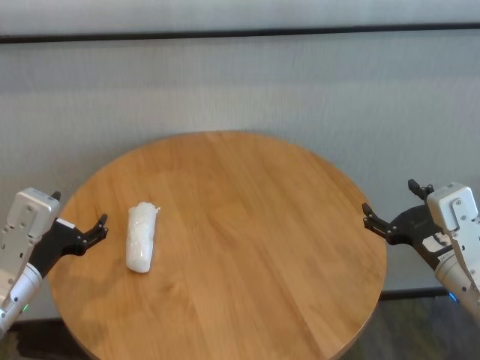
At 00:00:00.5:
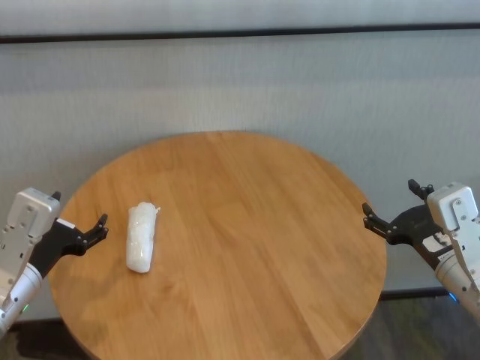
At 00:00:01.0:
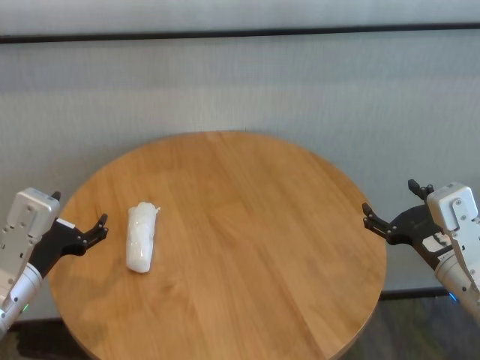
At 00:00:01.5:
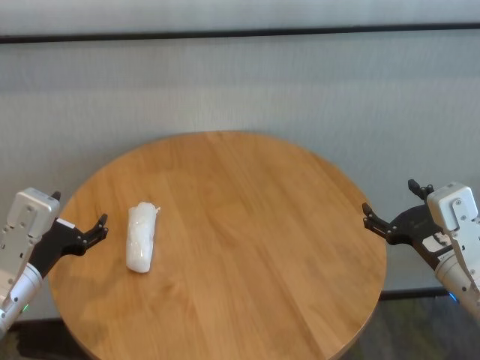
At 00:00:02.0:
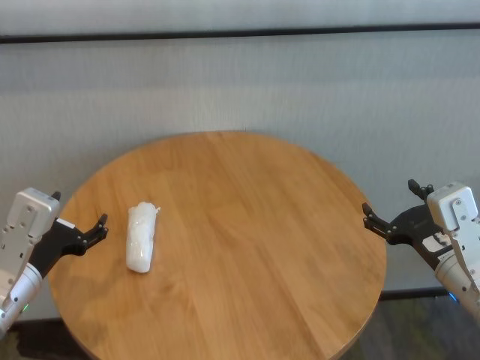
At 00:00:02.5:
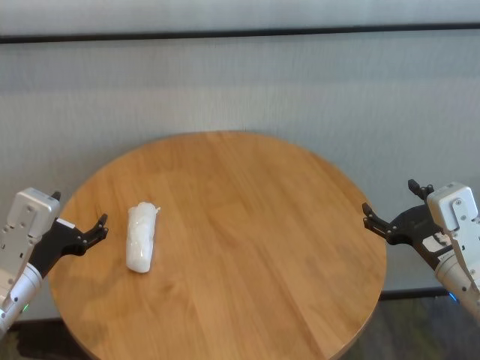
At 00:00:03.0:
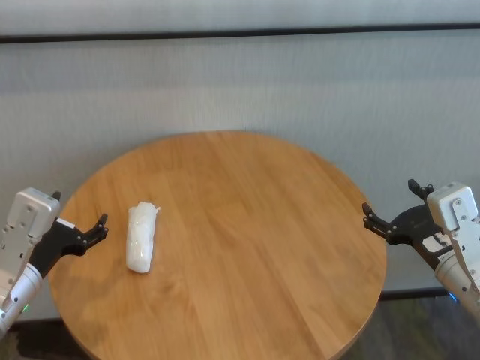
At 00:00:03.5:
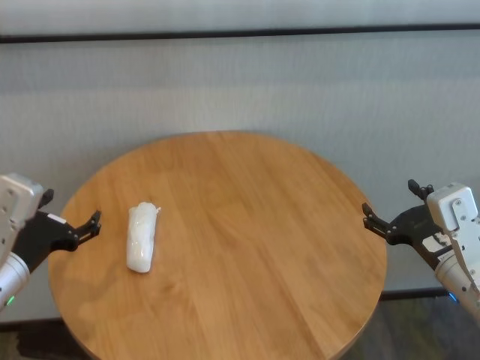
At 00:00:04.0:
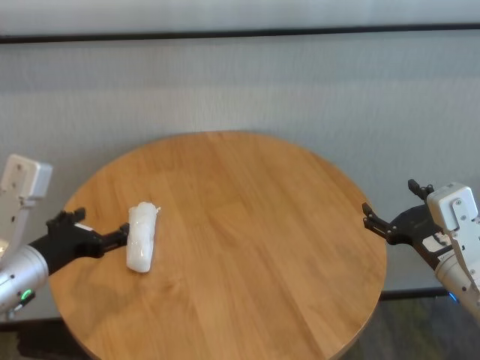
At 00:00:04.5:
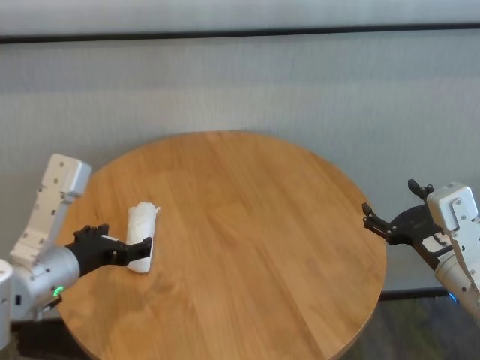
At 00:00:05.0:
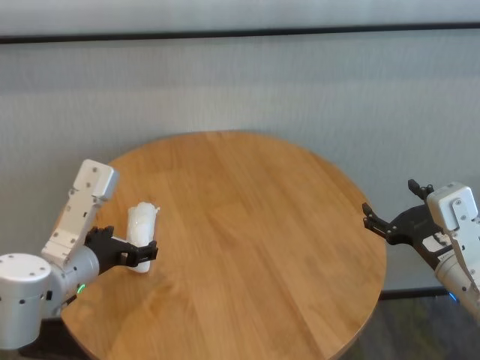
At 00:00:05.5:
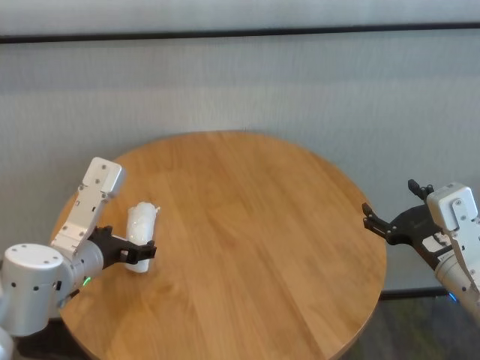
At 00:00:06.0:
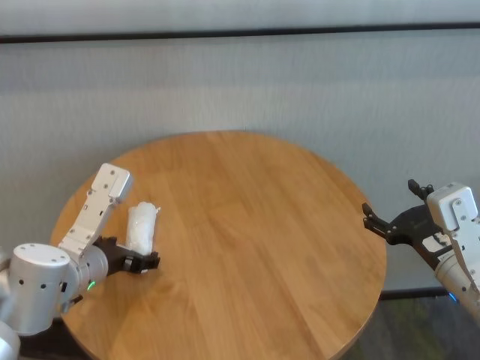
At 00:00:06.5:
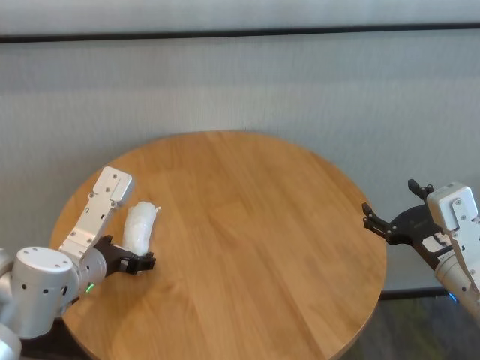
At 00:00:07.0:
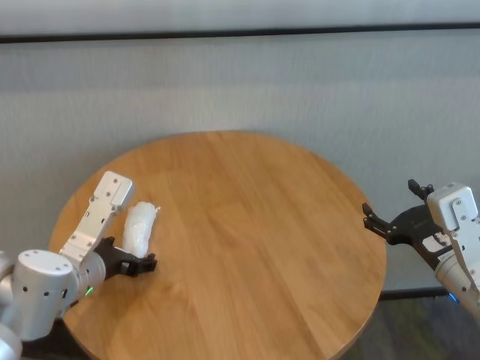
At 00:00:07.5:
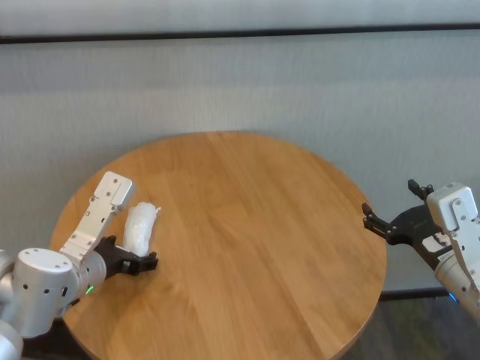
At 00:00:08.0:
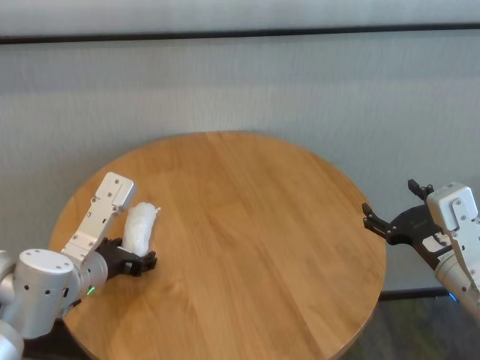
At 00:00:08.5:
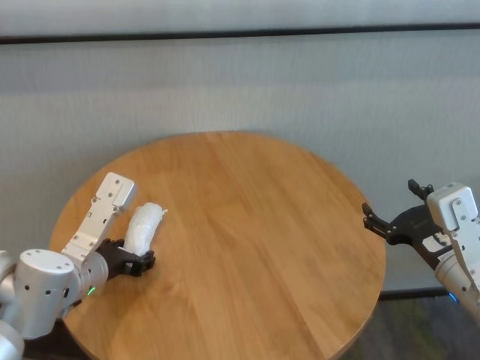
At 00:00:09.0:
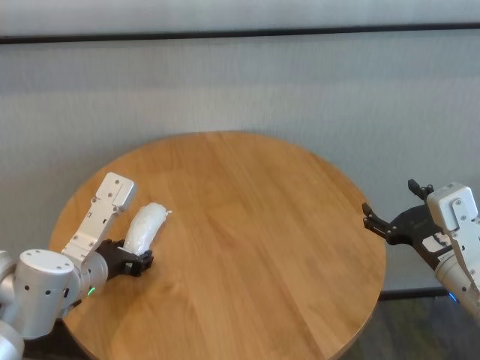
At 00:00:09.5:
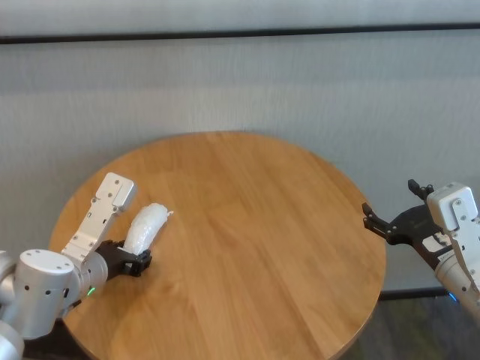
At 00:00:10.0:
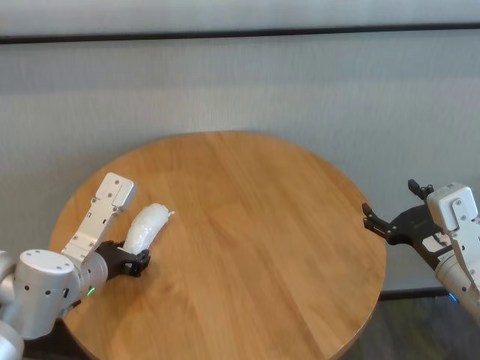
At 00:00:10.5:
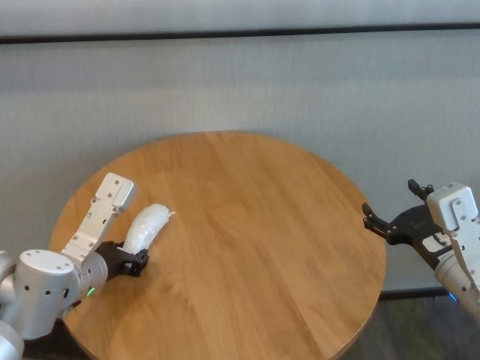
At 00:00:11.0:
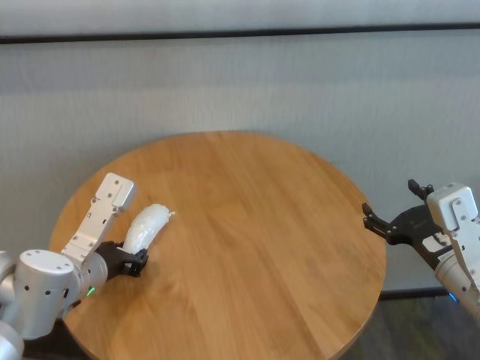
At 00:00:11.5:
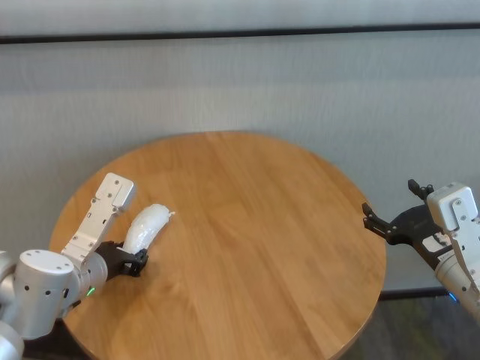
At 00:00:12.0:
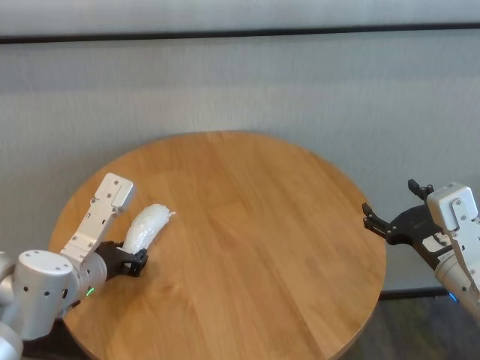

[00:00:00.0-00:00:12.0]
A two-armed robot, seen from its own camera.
Task of the whole recording: One hand took the sandbag from the other hand and placed it on the table.
Step, 00:00:00.0 to 00:00:10.5: Grasp the paper ball with left gripper.

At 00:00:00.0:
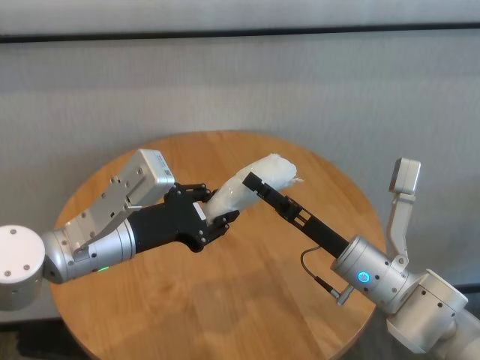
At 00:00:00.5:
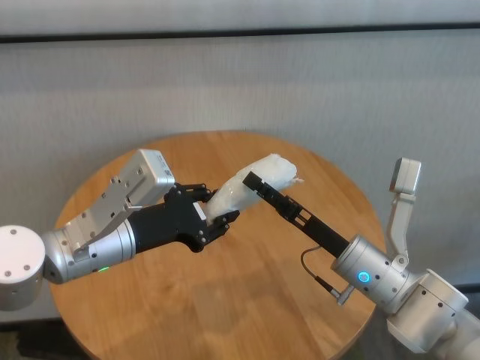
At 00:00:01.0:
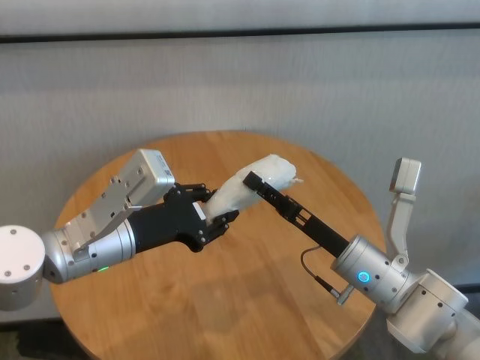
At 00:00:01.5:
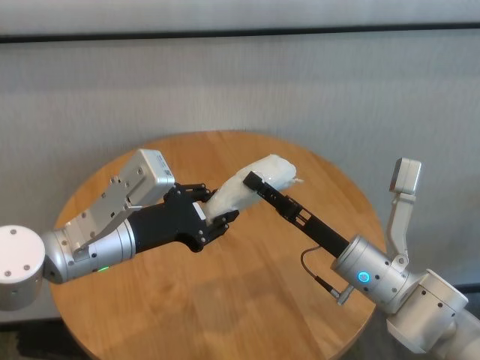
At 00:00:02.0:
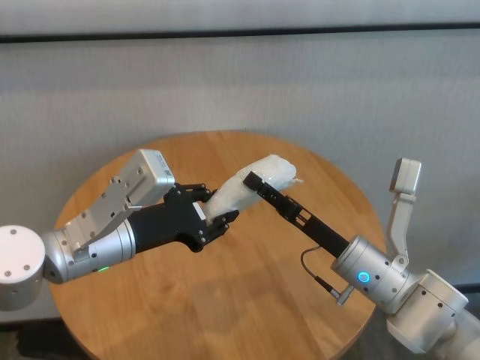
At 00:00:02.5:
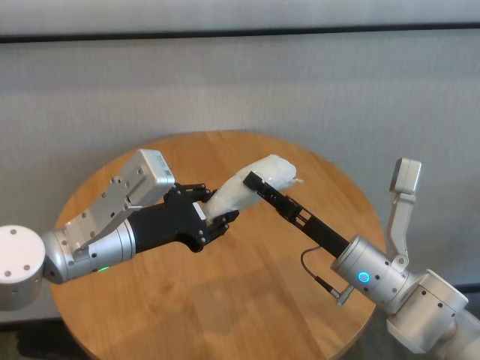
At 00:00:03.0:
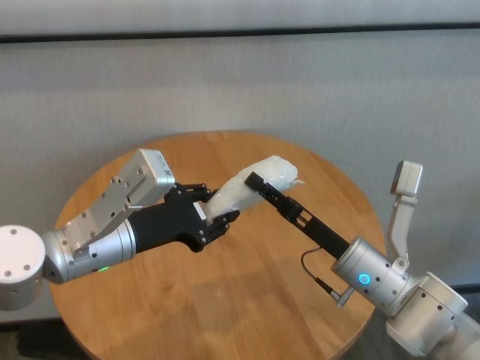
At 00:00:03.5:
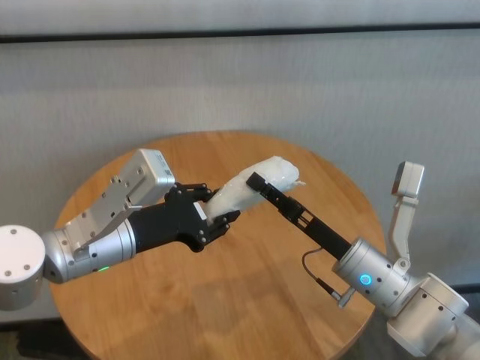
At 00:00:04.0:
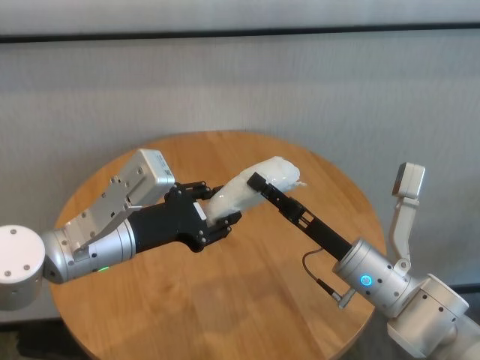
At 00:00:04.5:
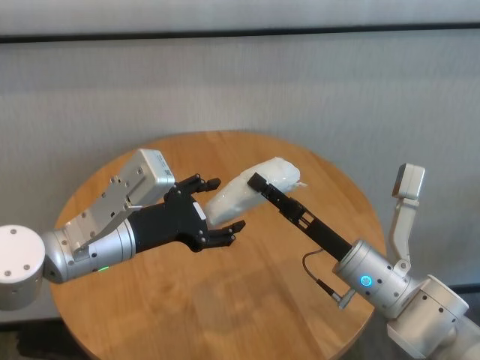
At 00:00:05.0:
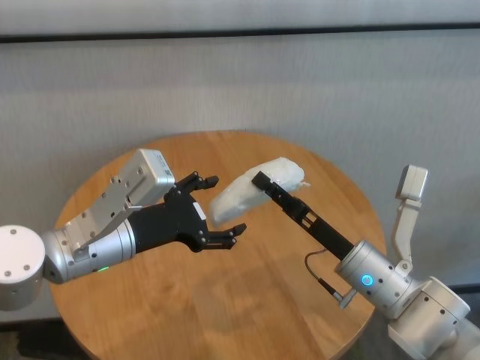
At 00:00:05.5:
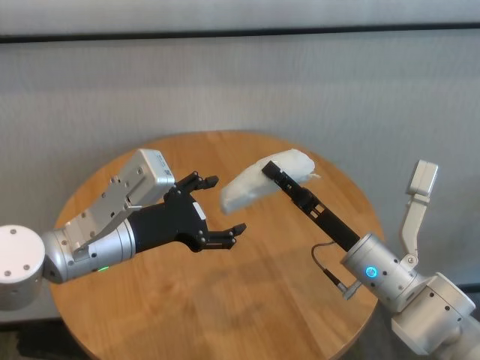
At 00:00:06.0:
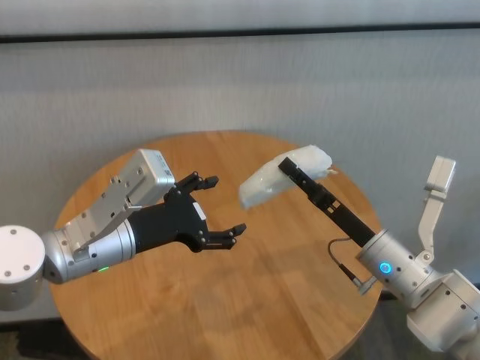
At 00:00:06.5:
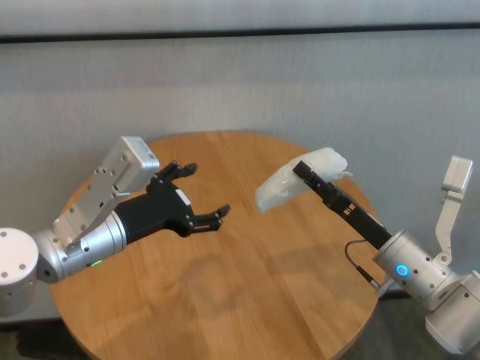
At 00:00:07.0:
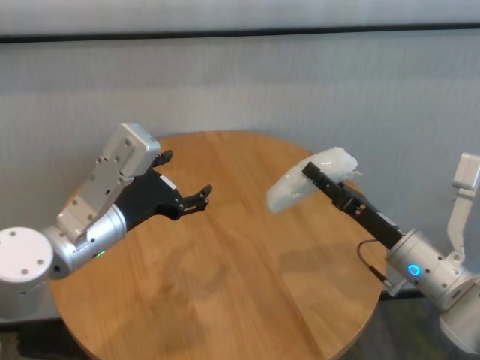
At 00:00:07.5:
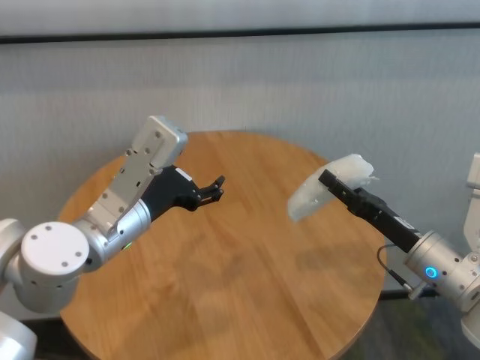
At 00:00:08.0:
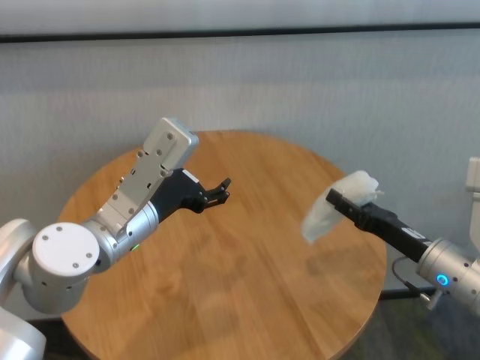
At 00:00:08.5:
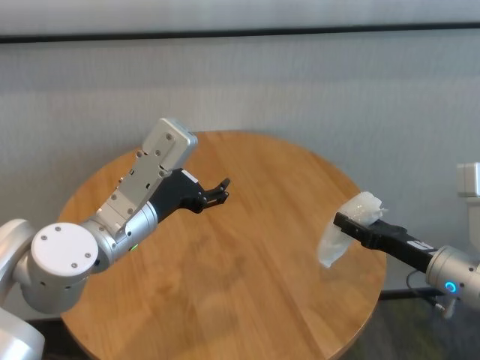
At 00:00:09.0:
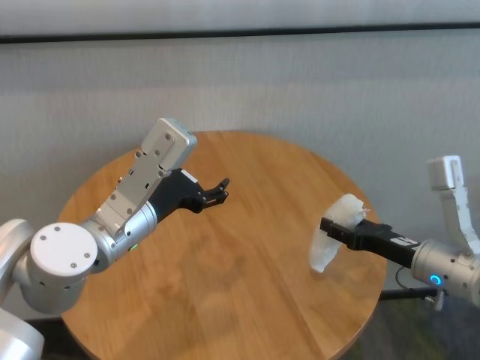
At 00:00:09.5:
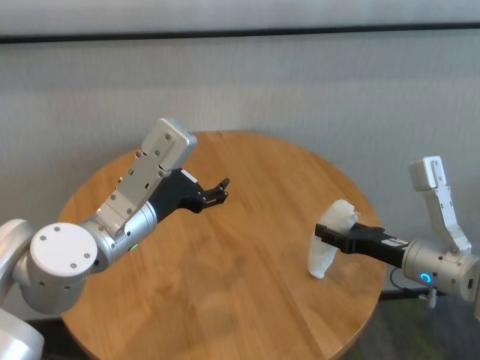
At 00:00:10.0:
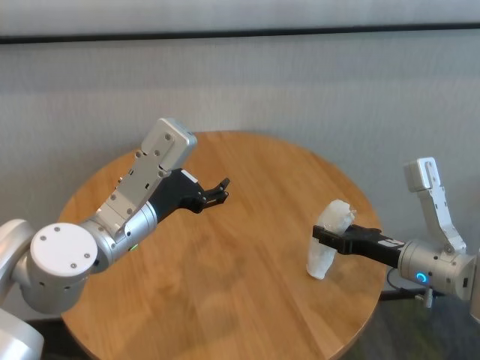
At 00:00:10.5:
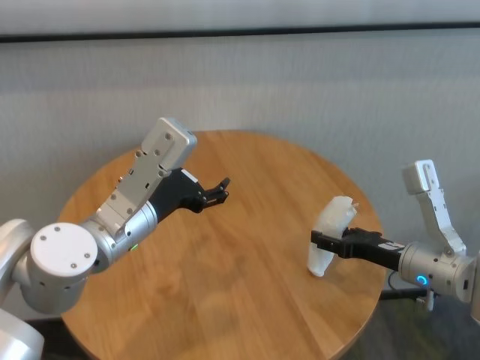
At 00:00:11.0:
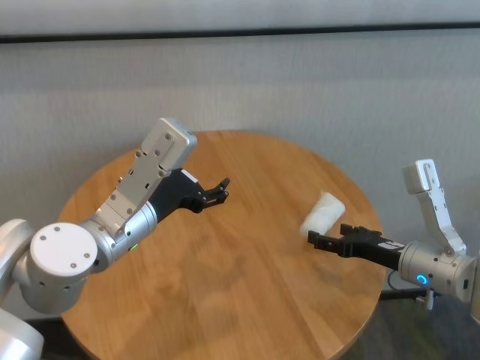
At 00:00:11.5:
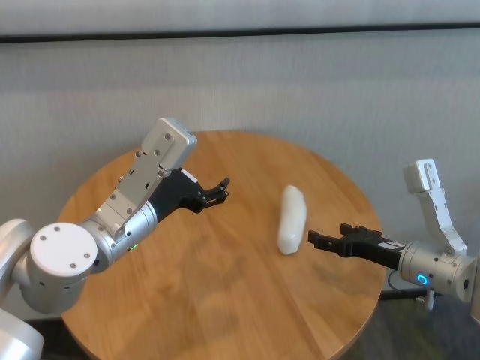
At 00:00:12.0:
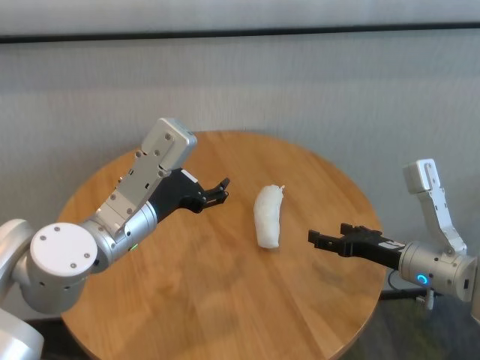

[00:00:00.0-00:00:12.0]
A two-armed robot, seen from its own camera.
Task of the whole recording: One hand took the sandbag from the other hand and placed it on the table.
Step, 00:00:00.0 to 00:00:05.5: Pass the paper ball to the right gripper.
Step, 00:00:06.0 to 00:00:11.0: Place the paper ball on the table with right gripper.
